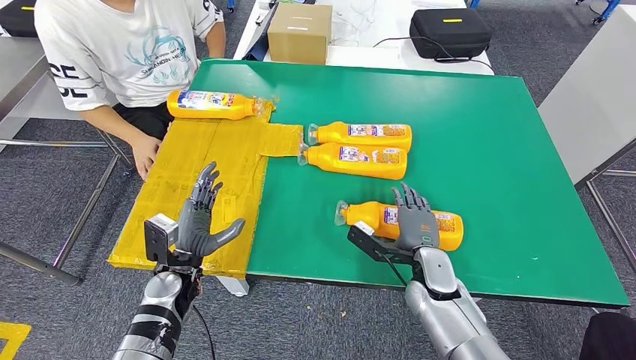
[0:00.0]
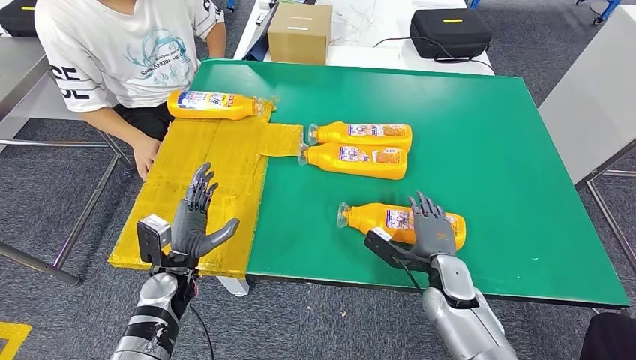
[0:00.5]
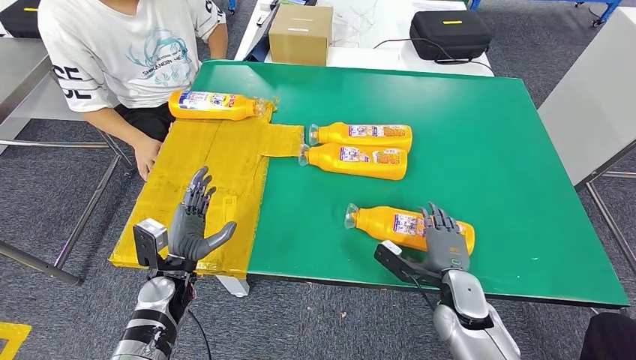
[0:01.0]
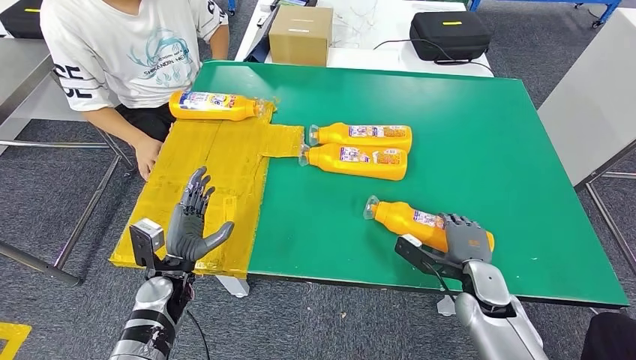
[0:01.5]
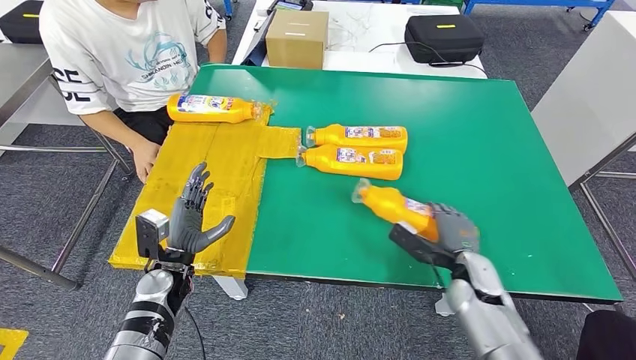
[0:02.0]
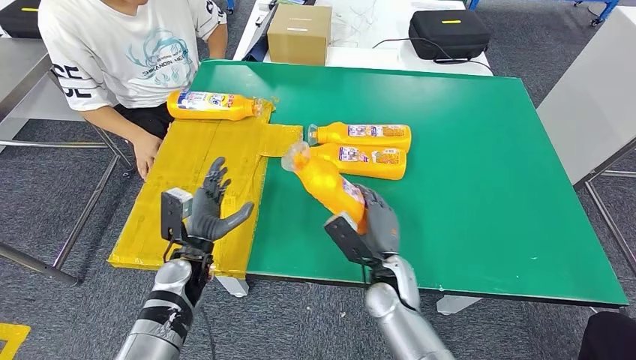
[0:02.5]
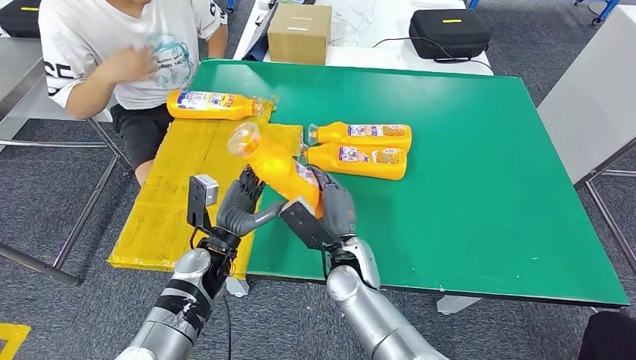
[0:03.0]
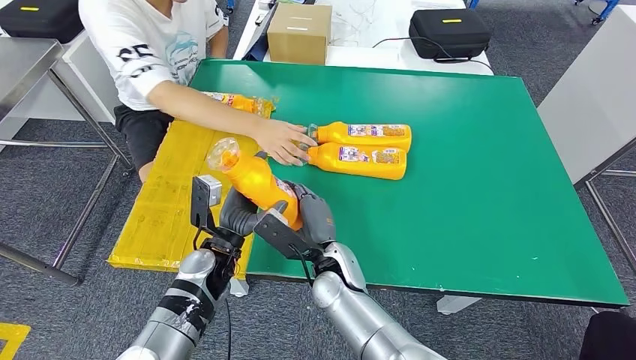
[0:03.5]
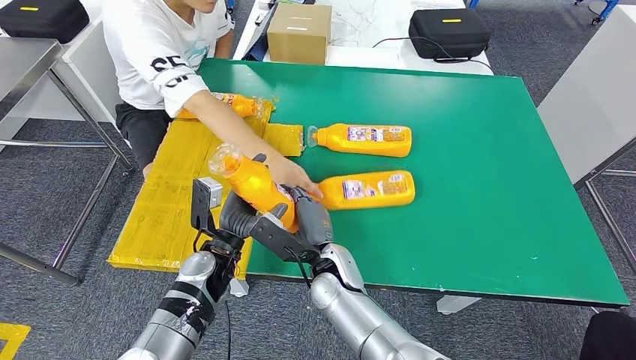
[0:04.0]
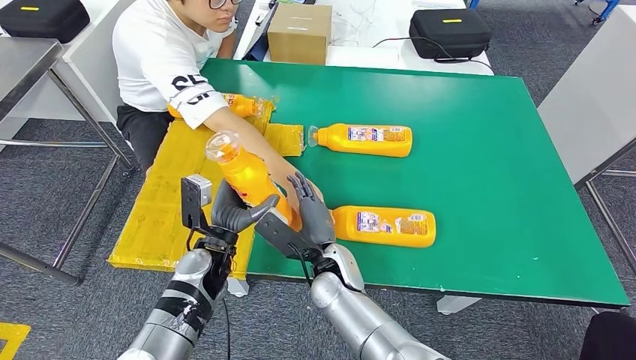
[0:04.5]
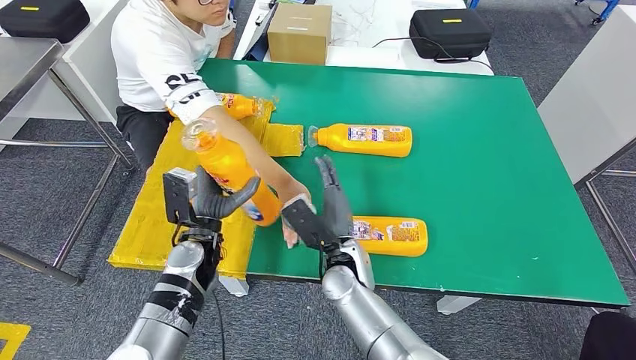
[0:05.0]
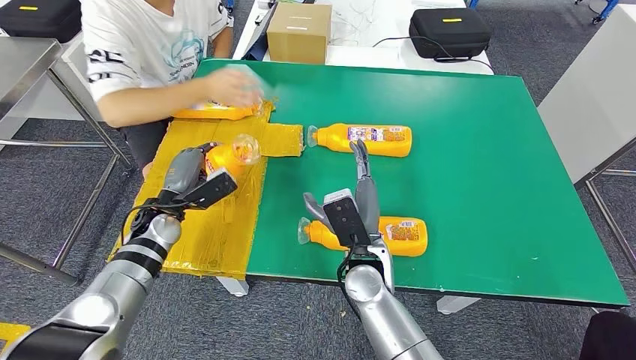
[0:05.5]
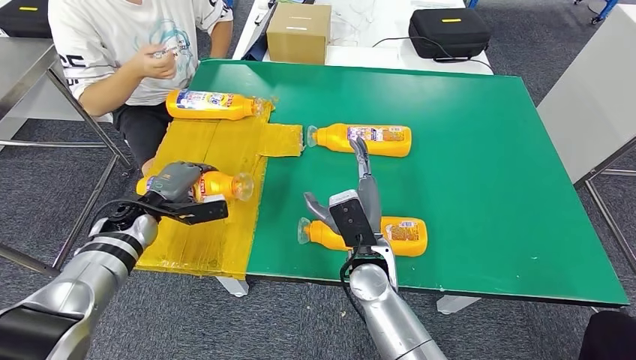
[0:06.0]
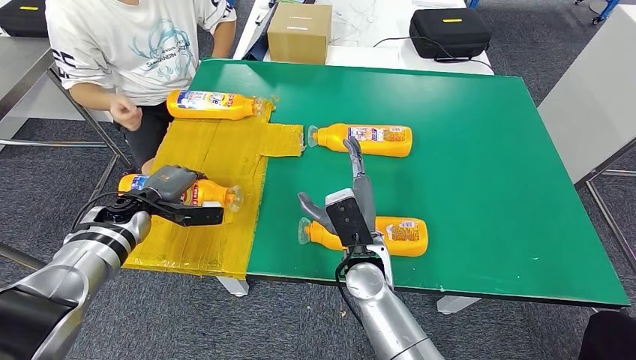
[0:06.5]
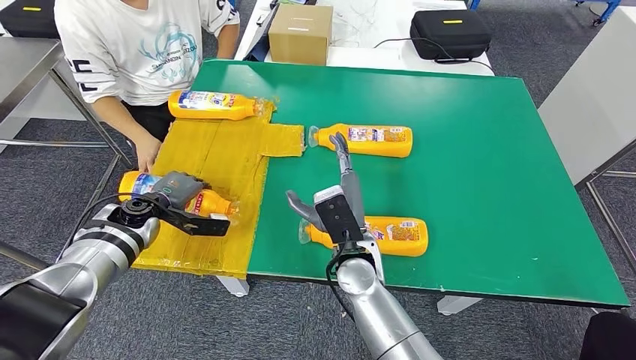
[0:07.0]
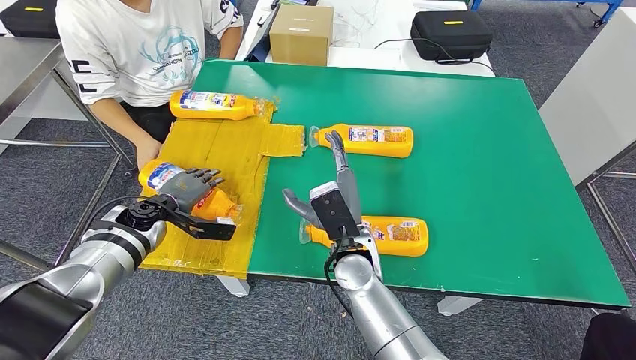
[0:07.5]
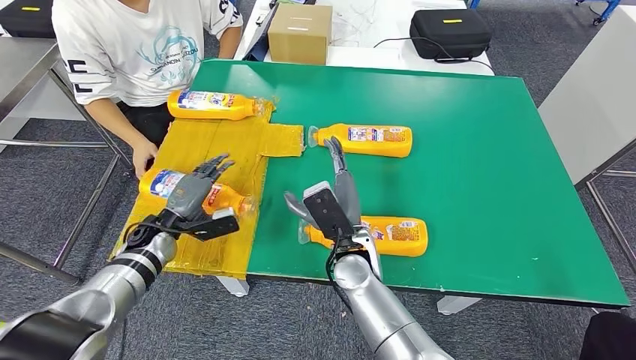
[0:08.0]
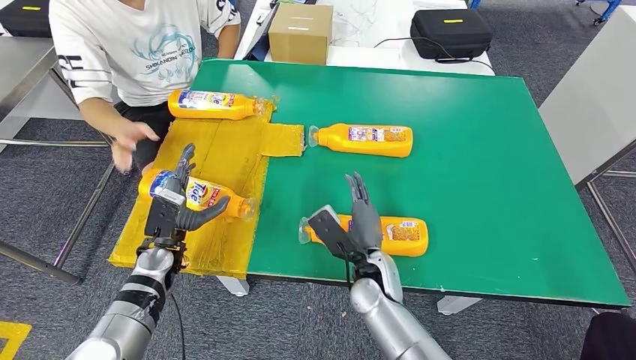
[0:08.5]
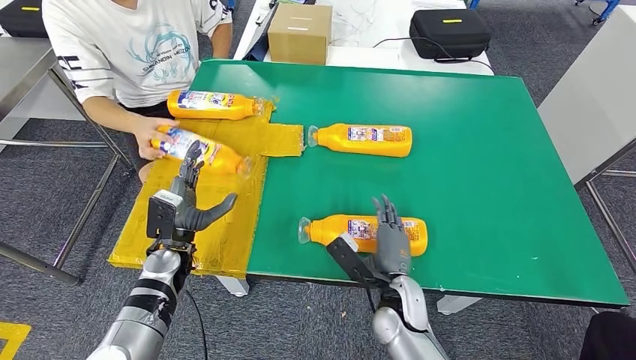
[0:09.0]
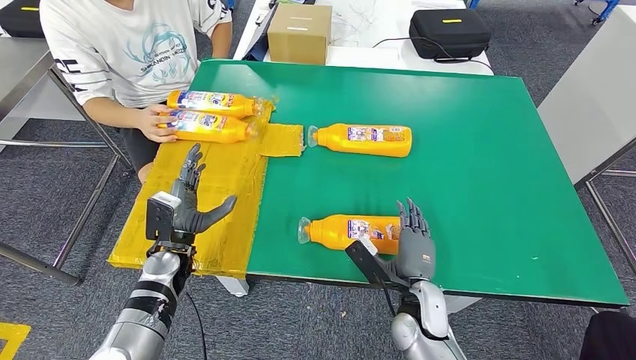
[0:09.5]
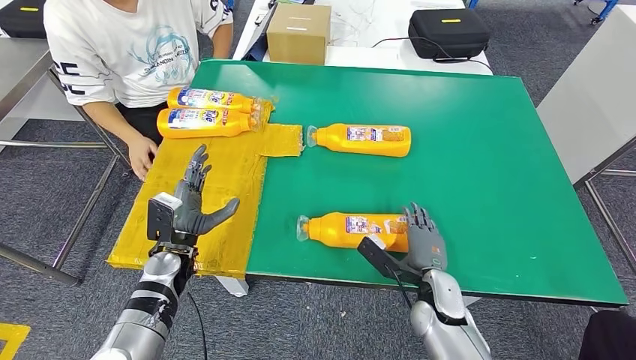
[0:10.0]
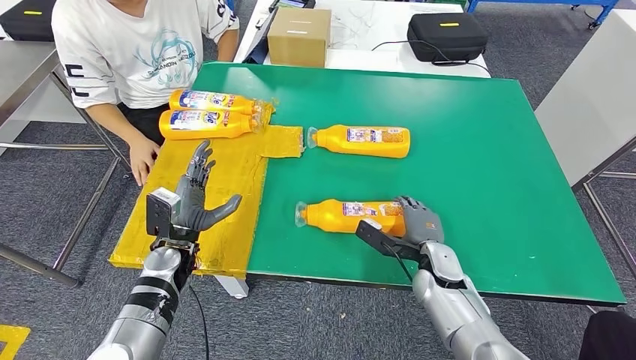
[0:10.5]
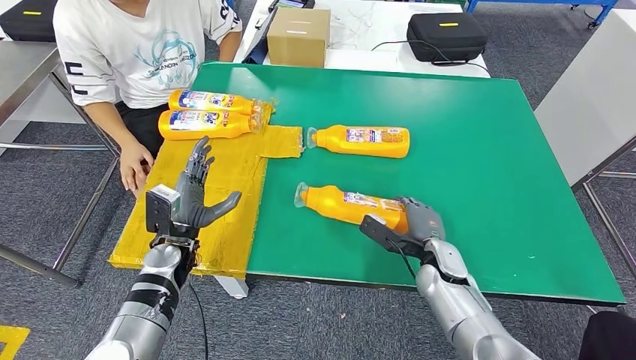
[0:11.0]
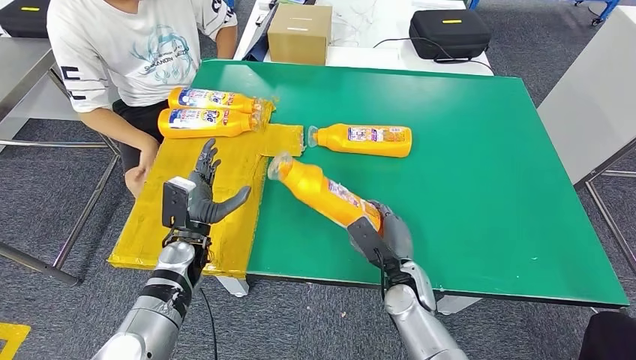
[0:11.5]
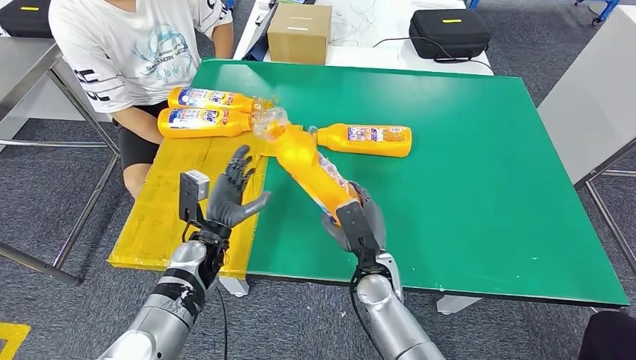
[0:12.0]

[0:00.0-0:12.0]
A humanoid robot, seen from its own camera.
Step, 0:00.0 to 0:03.5: Pick up the fast-moving consumer goods bottle from the table.
Step, 0:04.0 to 0:07.5: Flip the fast-moving consumer goods bottle to the front side.
0:10.0 to 0:12.0: The right hand shifts some 10 cm to the left. Meanwhile the left hand goes some 5 cm to the right.

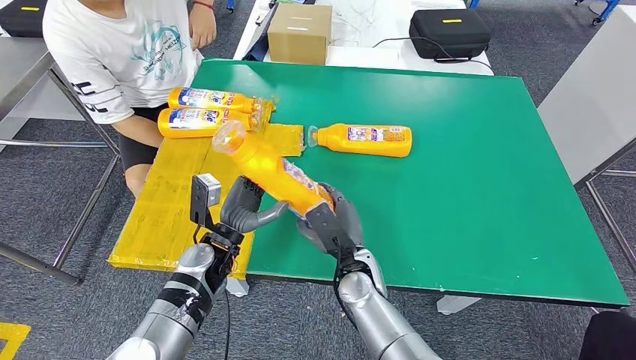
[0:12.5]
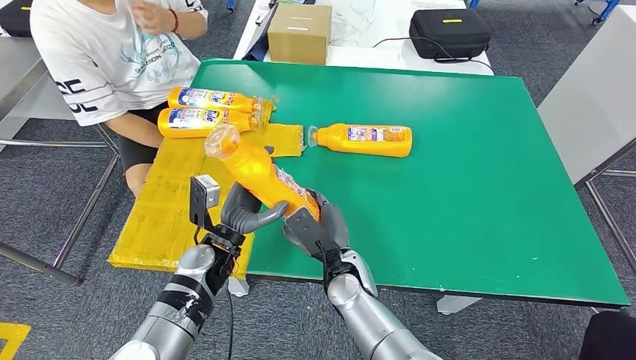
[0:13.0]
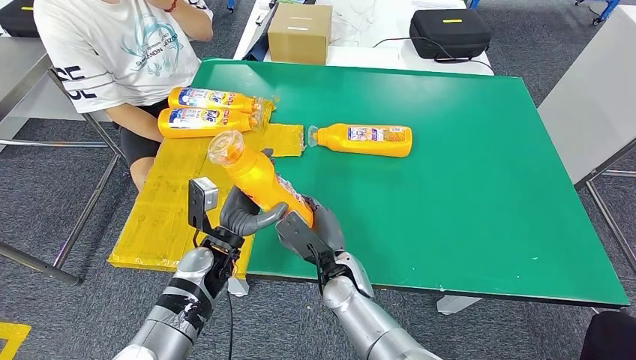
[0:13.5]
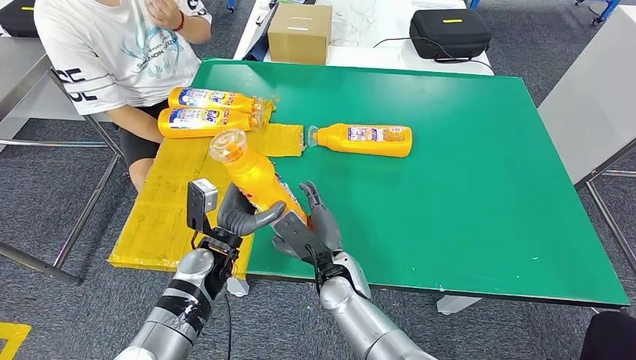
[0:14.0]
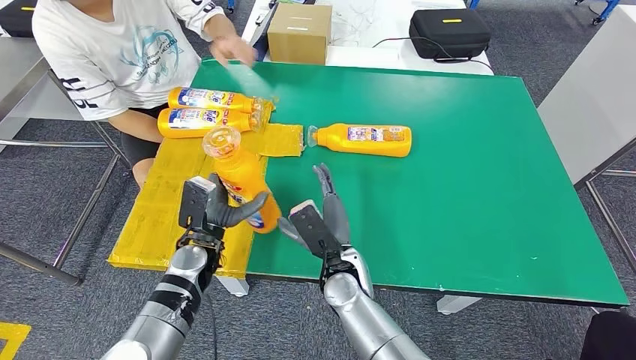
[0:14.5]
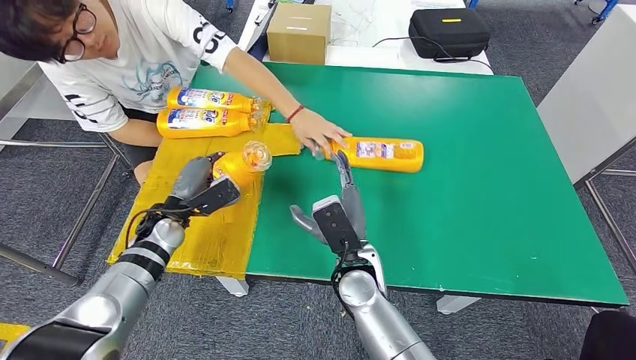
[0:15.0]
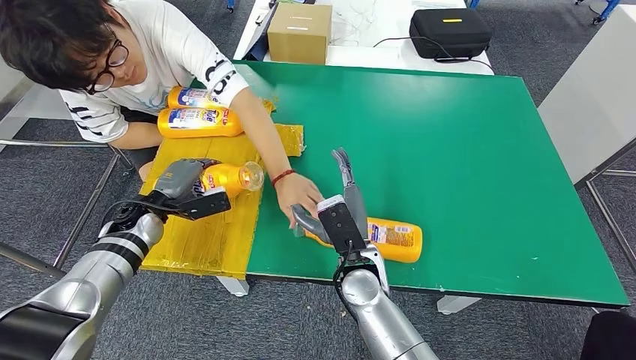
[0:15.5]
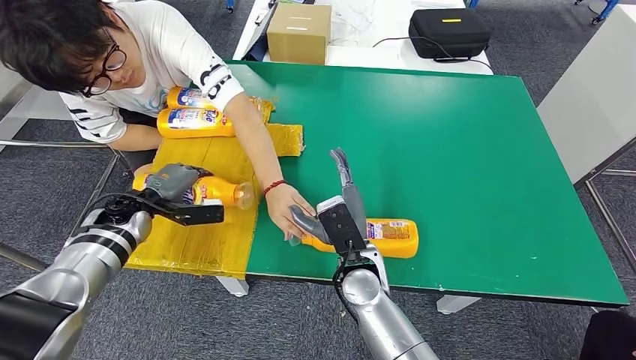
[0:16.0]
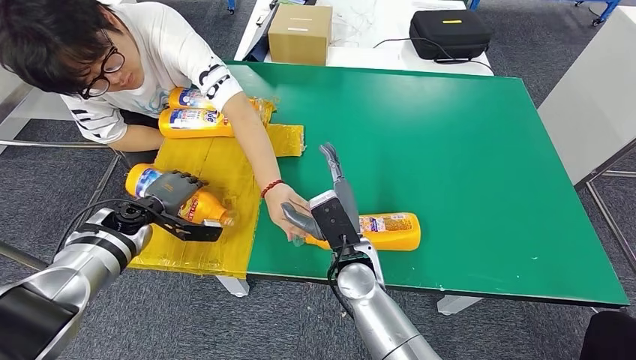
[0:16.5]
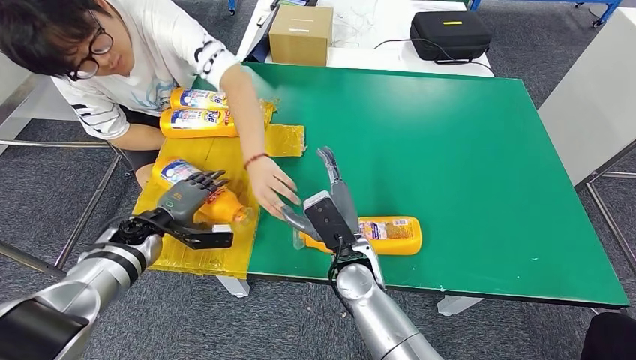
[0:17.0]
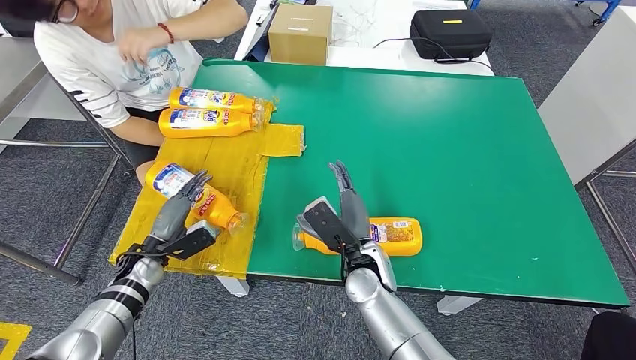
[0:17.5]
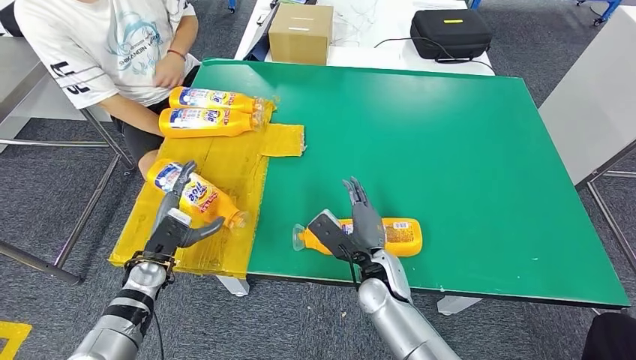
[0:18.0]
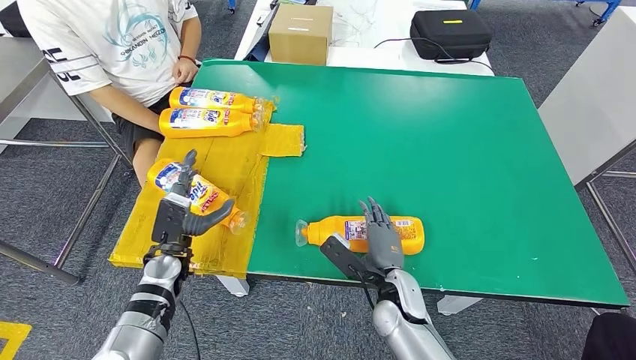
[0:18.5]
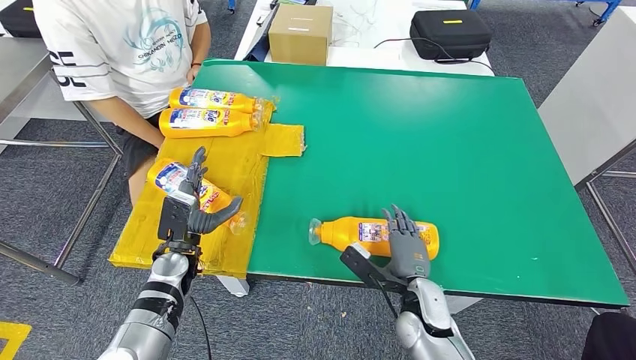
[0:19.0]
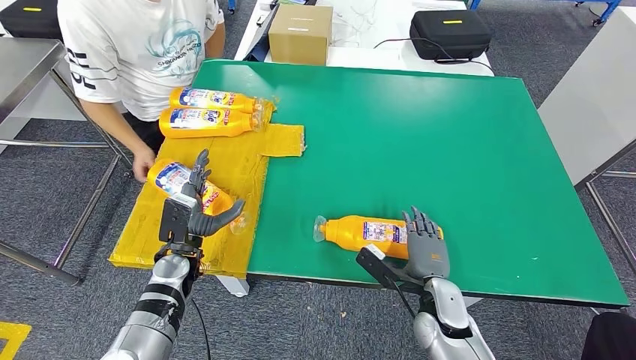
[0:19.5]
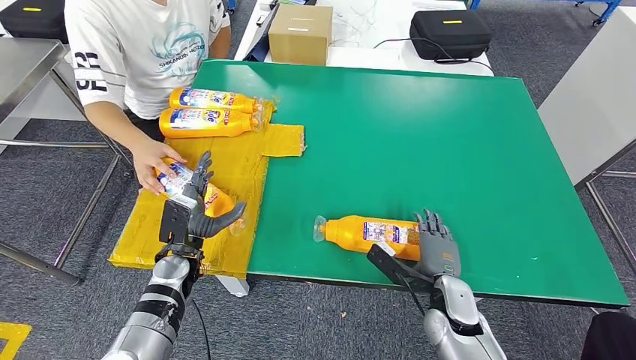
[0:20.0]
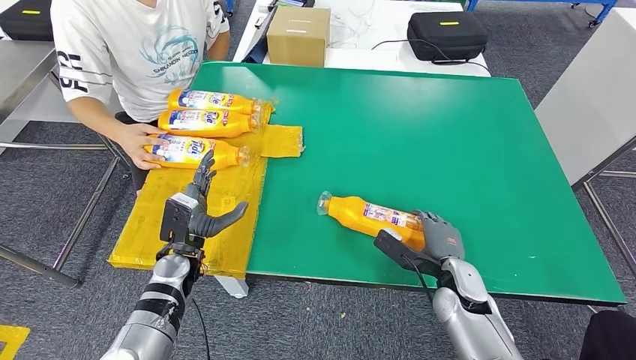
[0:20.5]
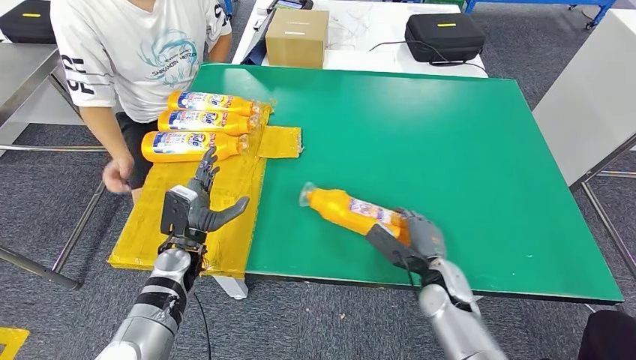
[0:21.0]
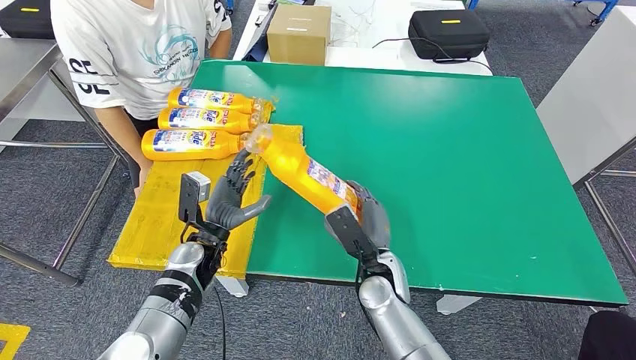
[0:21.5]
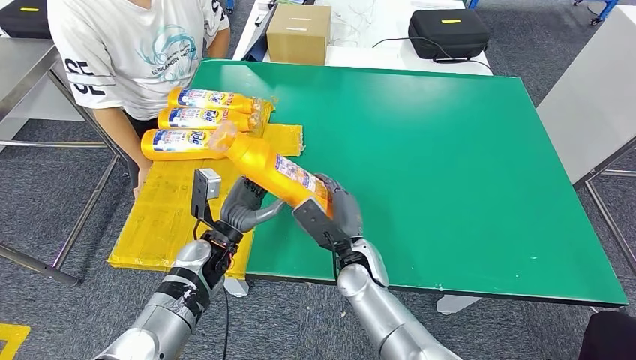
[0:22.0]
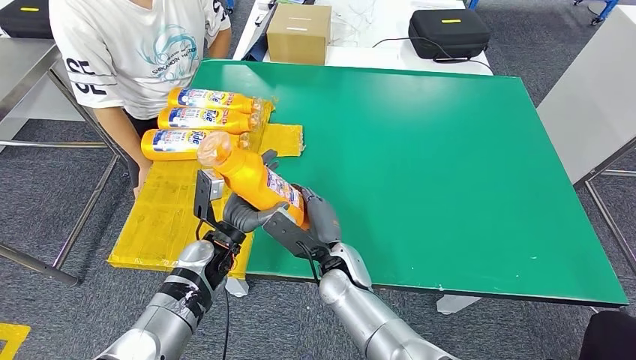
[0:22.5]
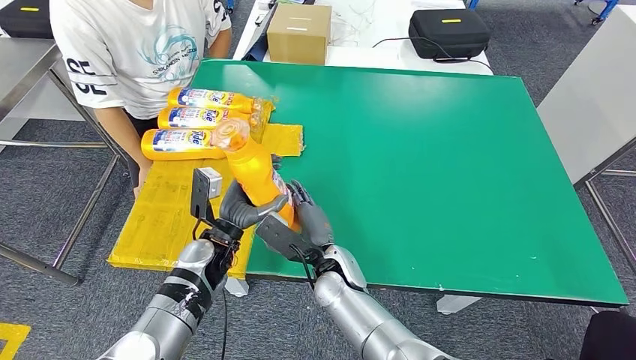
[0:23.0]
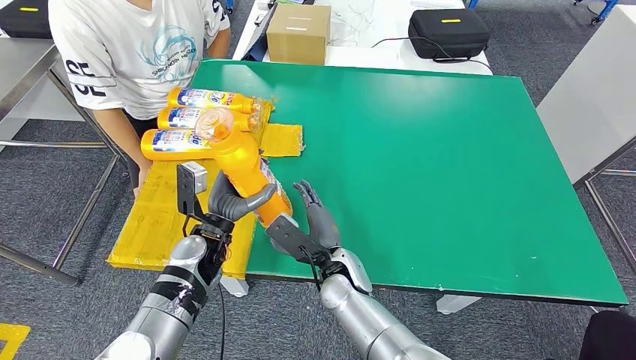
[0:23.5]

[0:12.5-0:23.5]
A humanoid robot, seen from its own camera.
Step, 0:14.5 to 0:18.5: Flip the fast-moving consumer goods bottle to the front side.
Step, 0:19.0 to 0:23.0: Pick up the fast-moving consumer goods bottle from the table.
0:21.5 to 0:23.5: The right hand shifts approximately 5 cm to the left.
